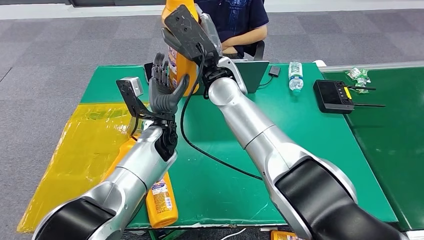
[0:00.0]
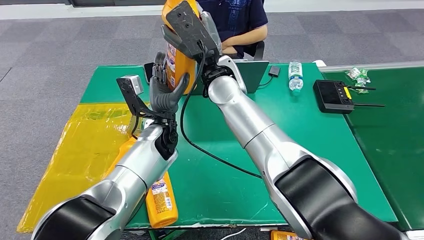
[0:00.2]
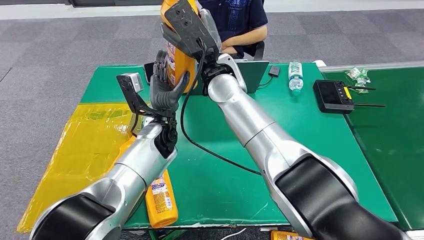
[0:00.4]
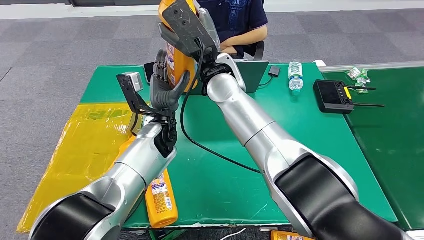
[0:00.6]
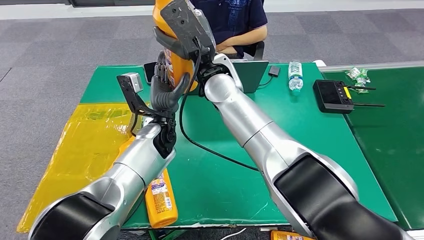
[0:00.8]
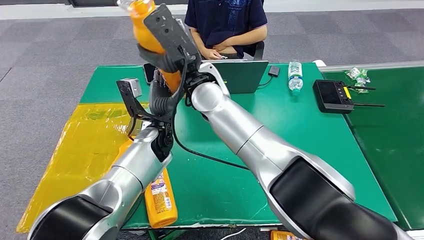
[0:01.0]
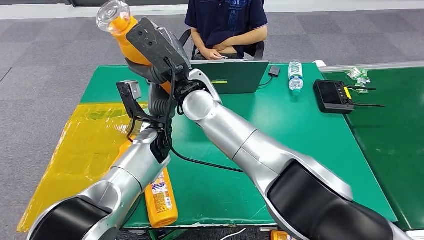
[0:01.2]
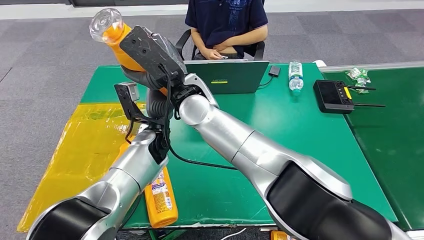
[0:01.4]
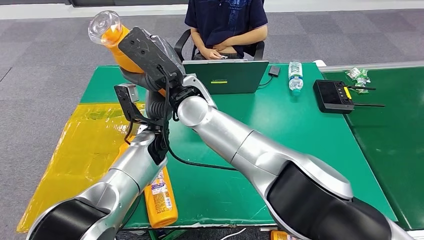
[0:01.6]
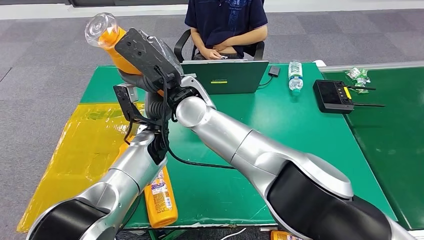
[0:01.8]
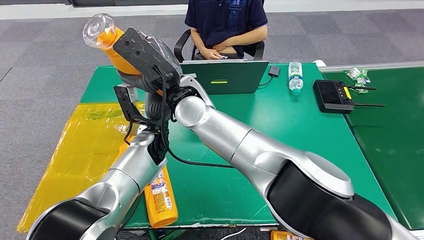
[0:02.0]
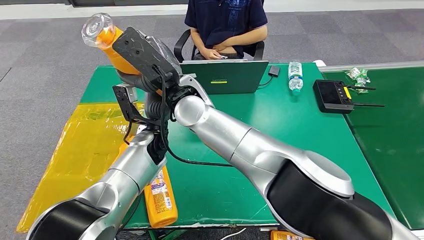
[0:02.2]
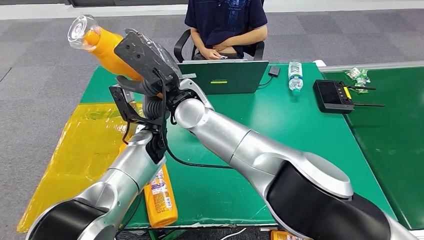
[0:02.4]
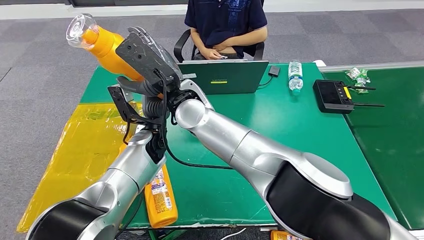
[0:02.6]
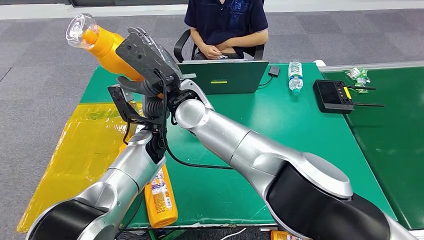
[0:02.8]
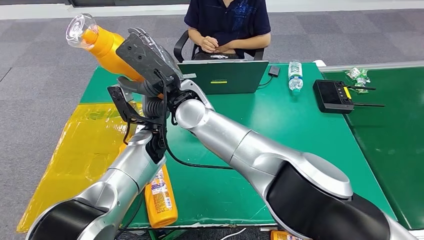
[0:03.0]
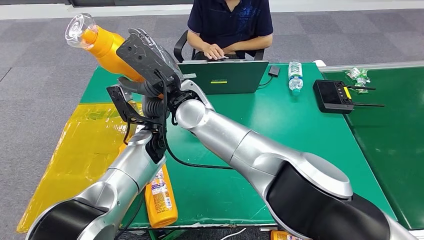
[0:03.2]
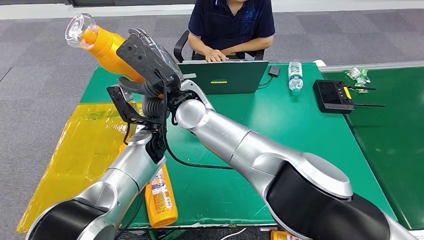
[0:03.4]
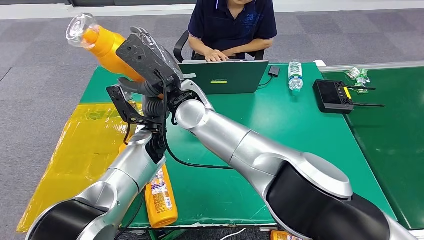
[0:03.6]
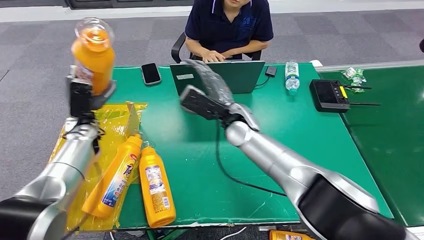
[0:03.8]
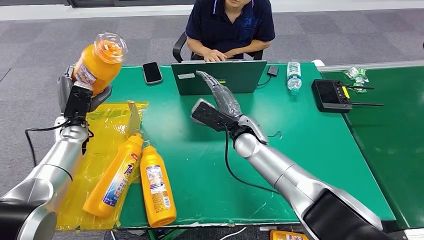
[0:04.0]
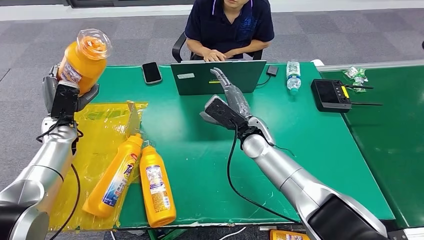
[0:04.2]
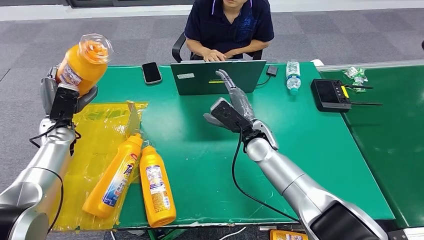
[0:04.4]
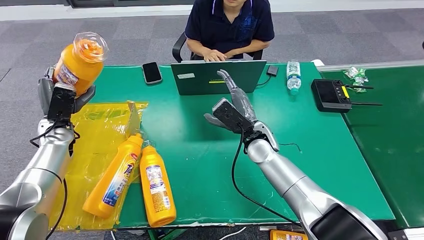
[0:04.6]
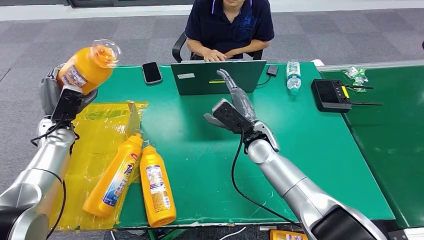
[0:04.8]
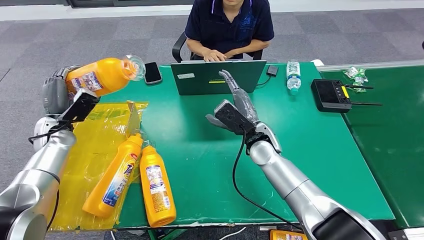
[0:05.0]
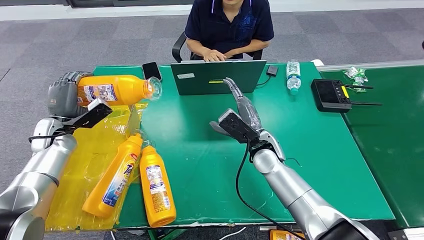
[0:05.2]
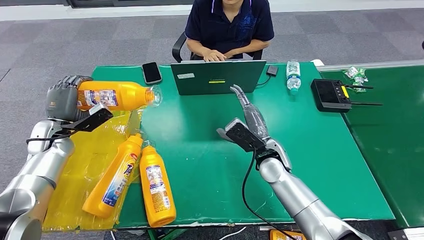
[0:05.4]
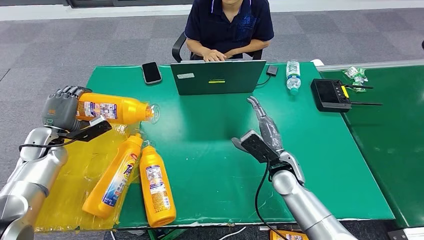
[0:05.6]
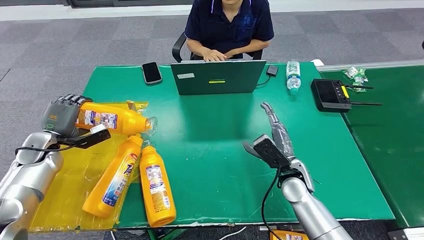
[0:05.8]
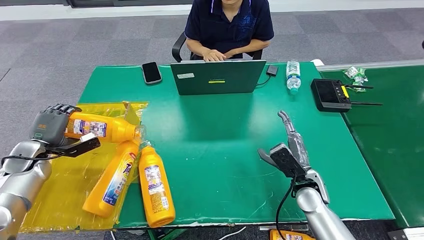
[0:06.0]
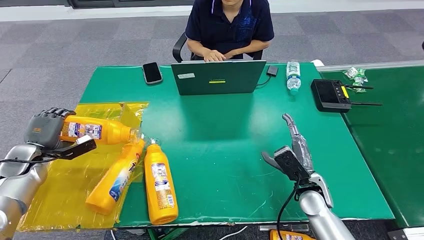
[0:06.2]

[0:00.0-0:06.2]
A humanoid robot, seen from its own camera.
Step, 0:00.0 to 0:06.2: Turn the bottle to the front side.
0:01.6 to 0:03.2: The two hands keep their place.
